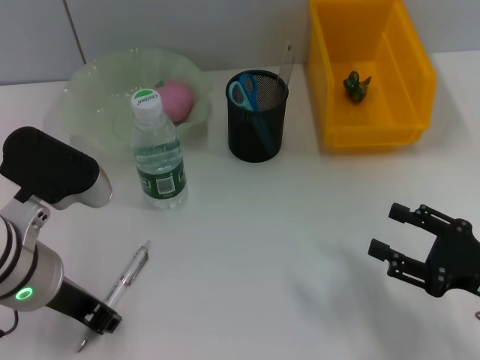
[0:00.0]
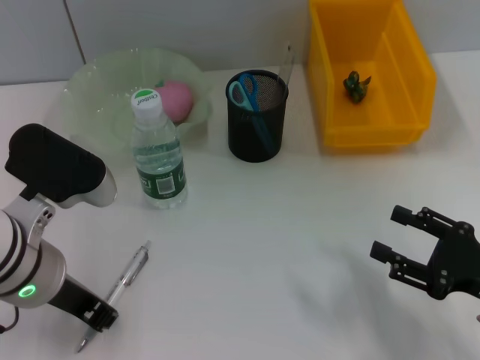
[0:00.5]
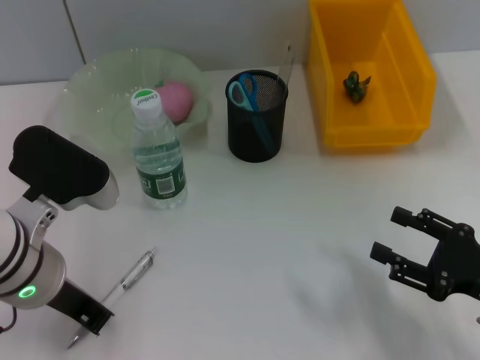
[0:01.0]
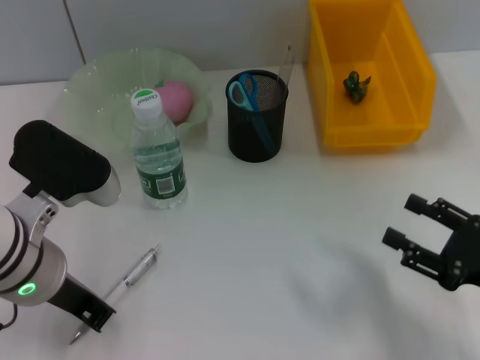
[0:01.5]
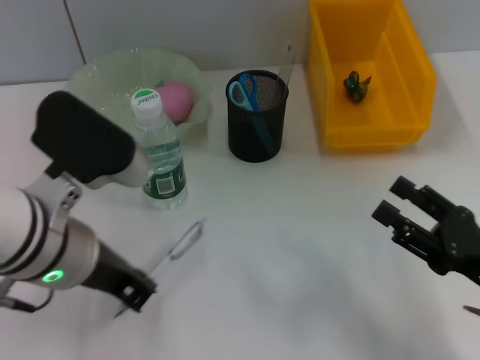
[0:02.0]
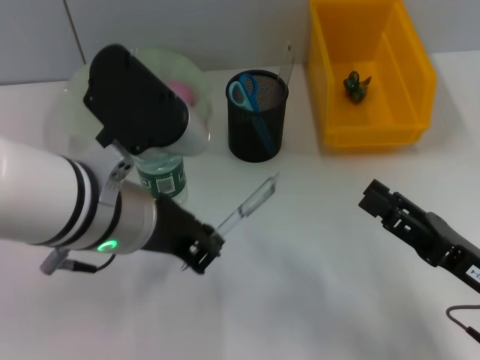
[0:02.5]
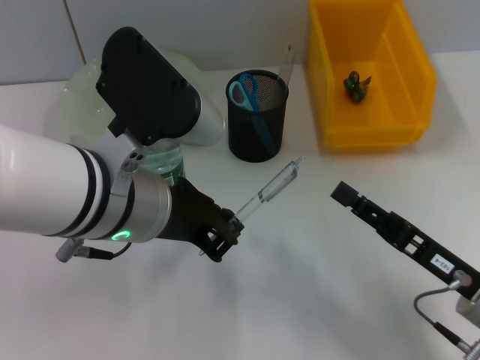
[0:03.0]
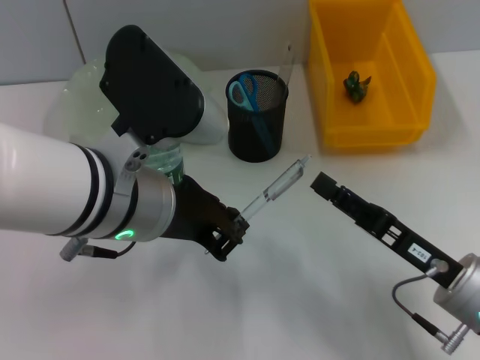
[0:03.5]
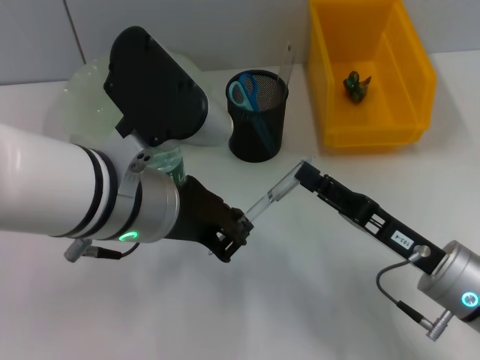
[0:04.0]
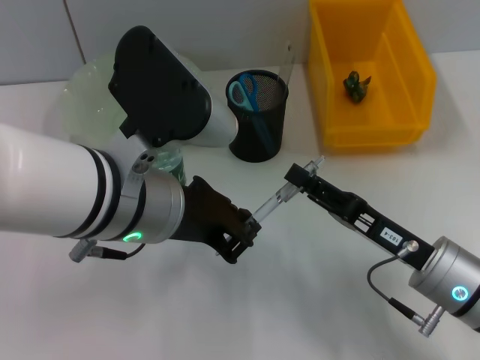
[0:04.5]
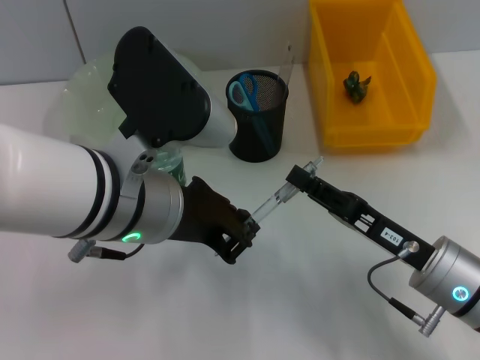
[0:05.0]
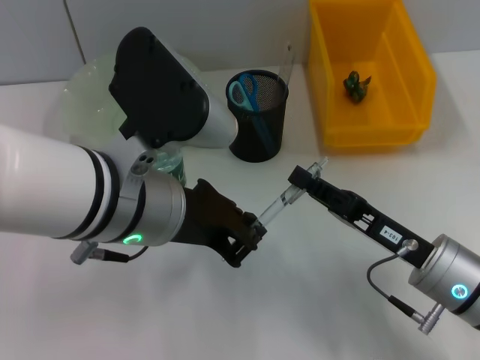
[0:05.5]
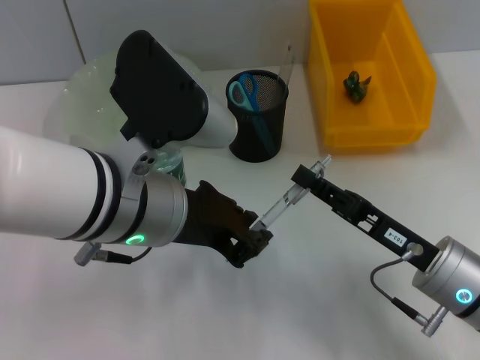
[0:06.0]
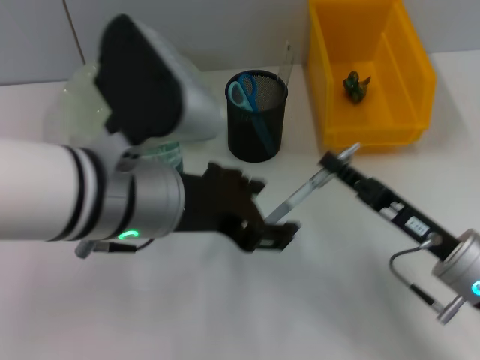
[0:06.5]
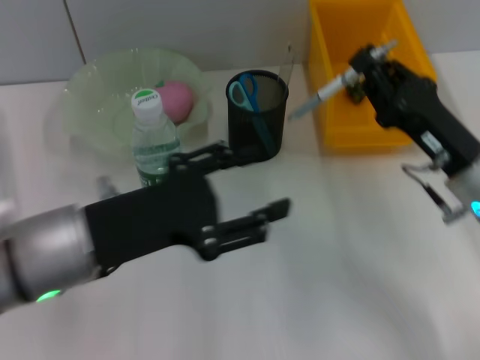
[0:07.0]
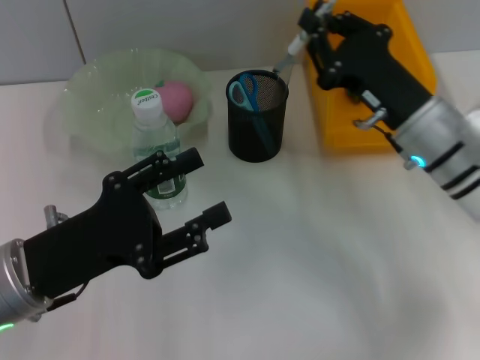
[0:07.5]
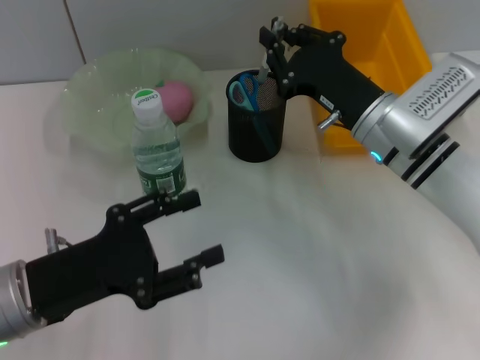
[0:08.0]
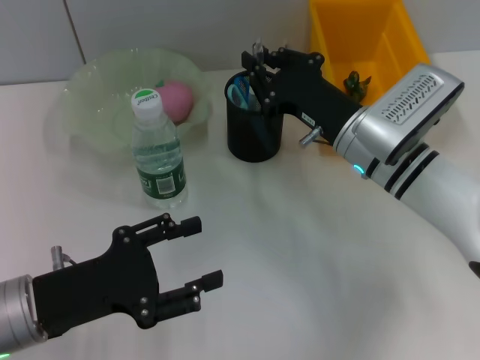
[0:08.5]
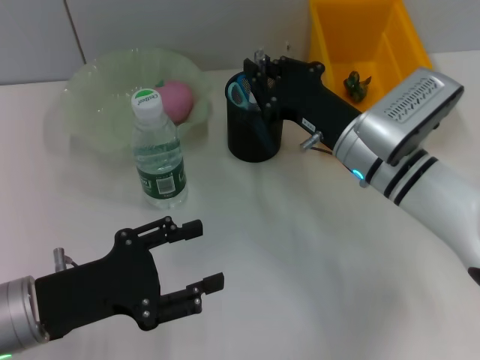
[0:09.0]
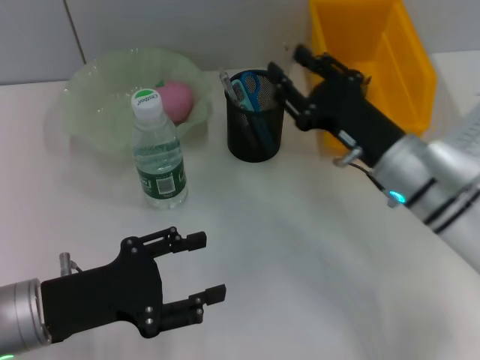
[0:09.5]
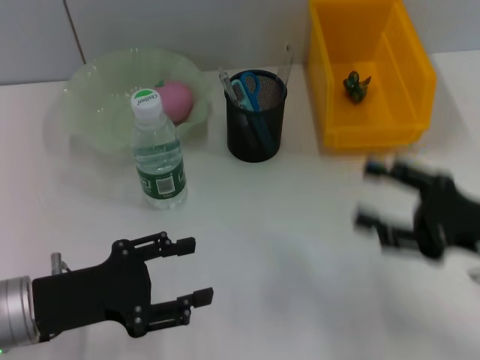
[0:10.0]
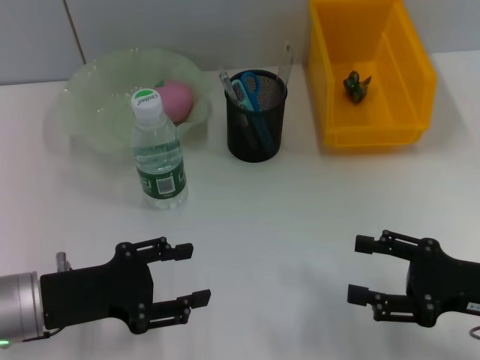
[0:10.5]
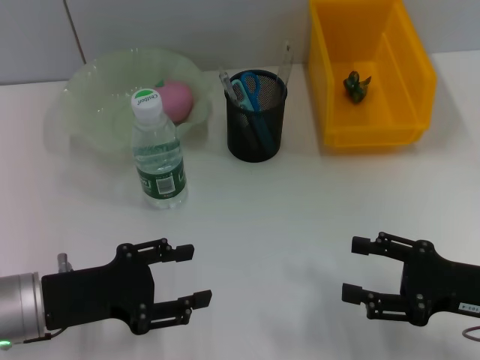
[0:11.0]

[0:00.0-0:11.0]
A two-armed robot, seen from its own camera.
Step, 0:01.5 to 0:06.0: Pass the gray spring-action pen from the left hand to the right hand.
Step, 0:06.5 to 0:09.5: Place the gray spring-action pen into the pen holder with the right hand.
0:00.0 to 0:02.0: The left gripper shifts by about 5 cm.
0:02.0 to 0:03.5: The left gripper shifts by about 5 cm, while the right gripper moves to the left, roughly 5 cm.
0:03.5 to 0:05.5: The right gripper closes up.
0:05.5 to 0:07.5: The left gripper shifts about 15 cm to the left and downward, and opens up; the right gripper moves forward and upward, approximately 10 cm.
0:07.5 to 0:09.0: The right gripper shifts by roughly 5 cm.
0:09.0 to 0:11.0: The right gripper goes roughly 20 cm backward and to the right, and opens its fingers.

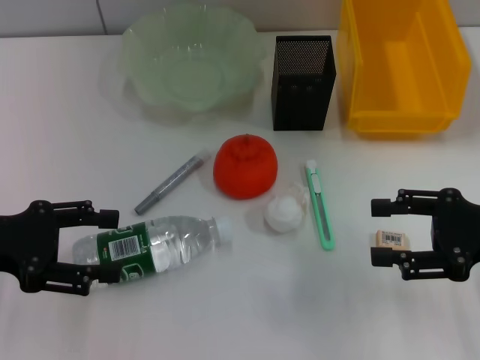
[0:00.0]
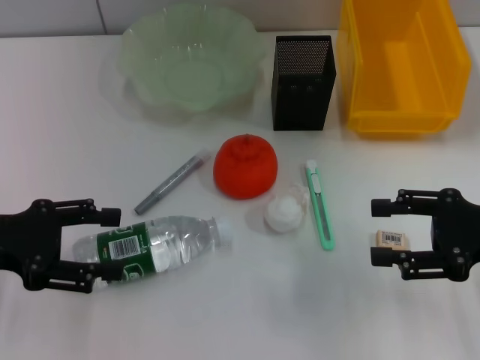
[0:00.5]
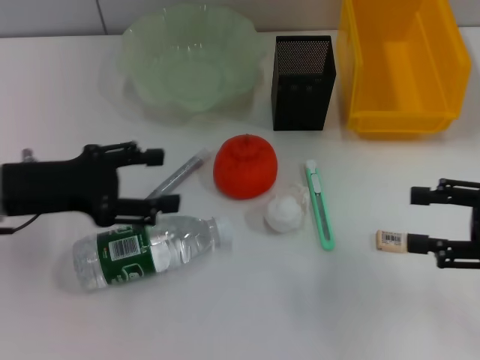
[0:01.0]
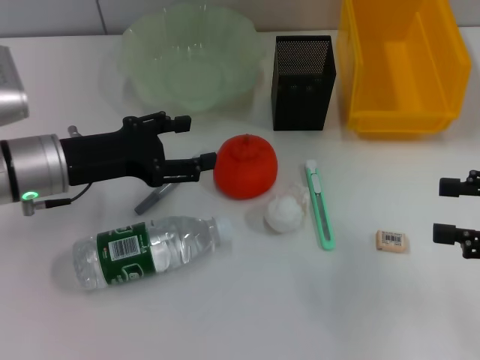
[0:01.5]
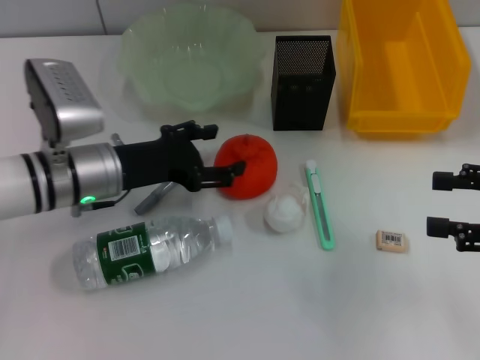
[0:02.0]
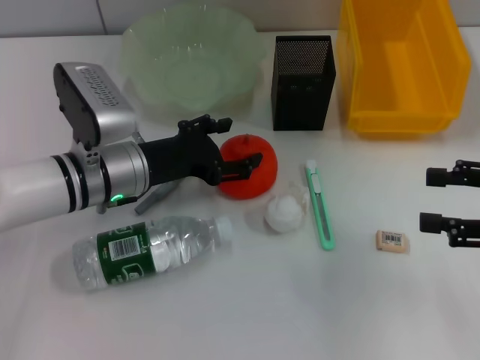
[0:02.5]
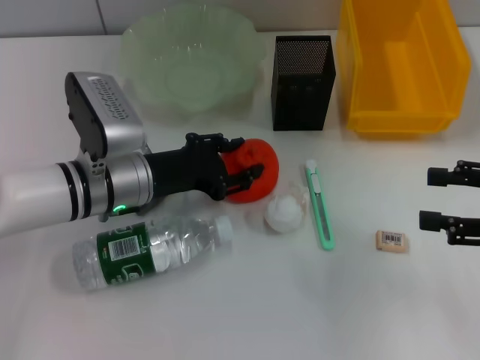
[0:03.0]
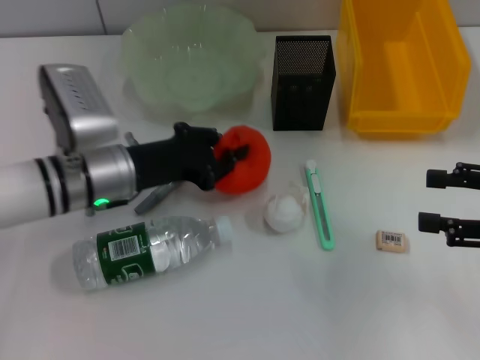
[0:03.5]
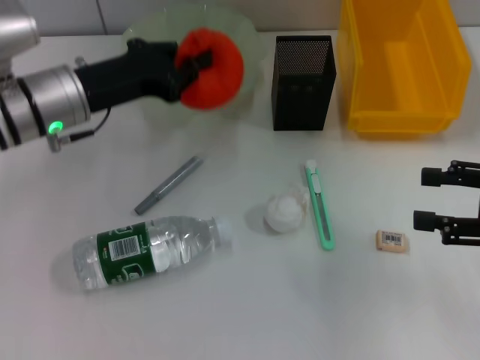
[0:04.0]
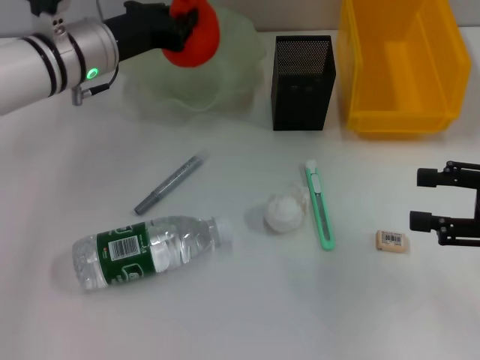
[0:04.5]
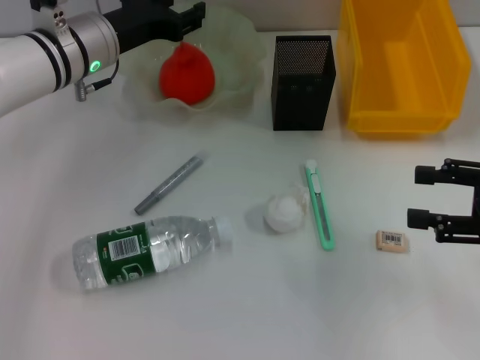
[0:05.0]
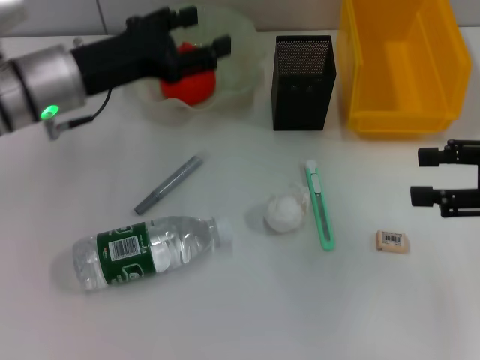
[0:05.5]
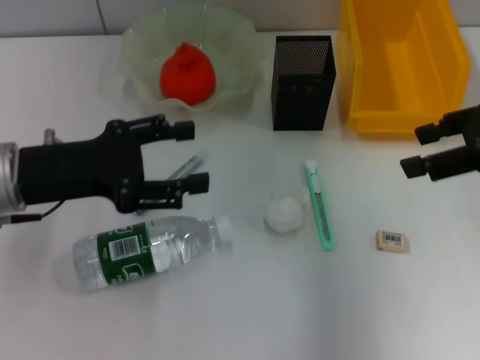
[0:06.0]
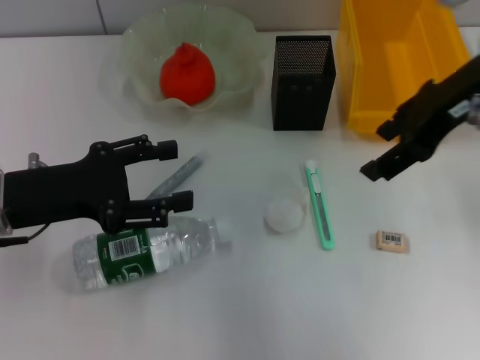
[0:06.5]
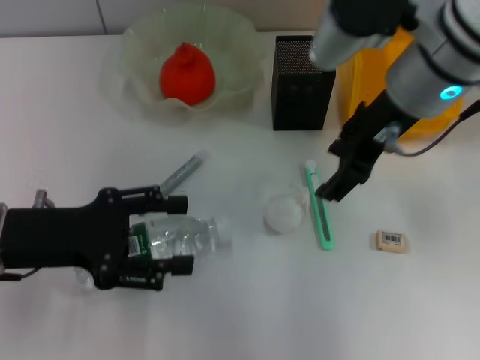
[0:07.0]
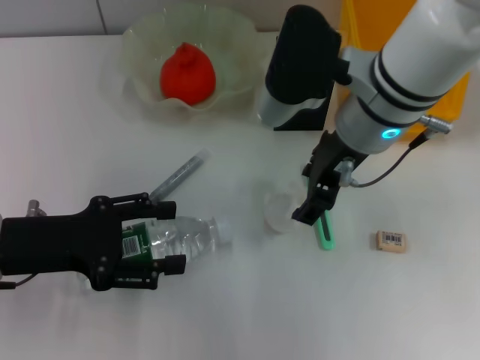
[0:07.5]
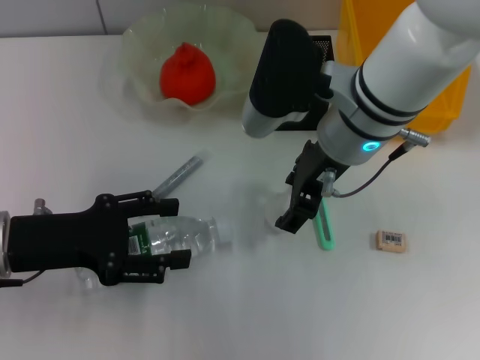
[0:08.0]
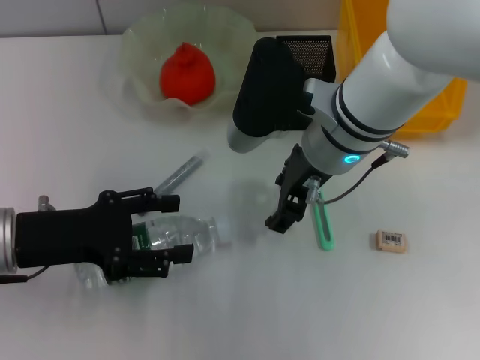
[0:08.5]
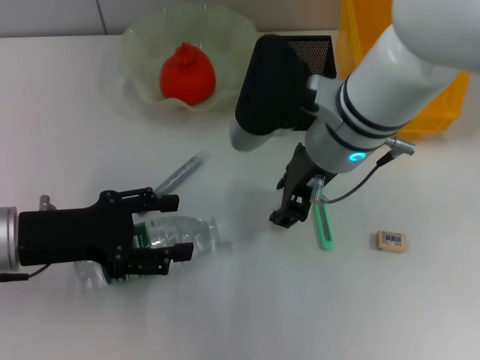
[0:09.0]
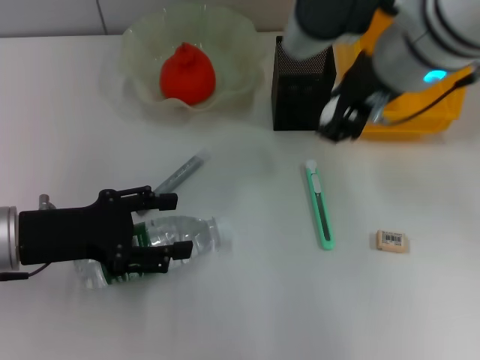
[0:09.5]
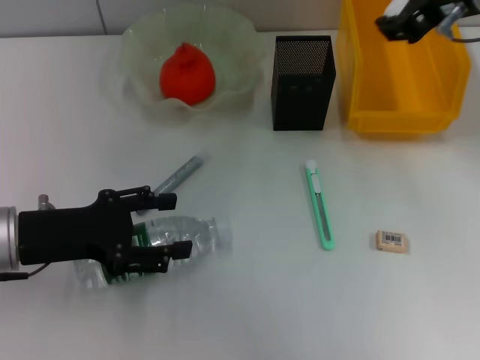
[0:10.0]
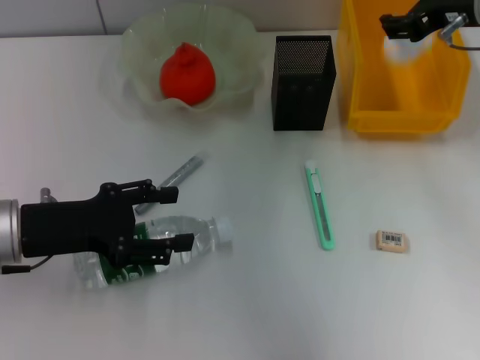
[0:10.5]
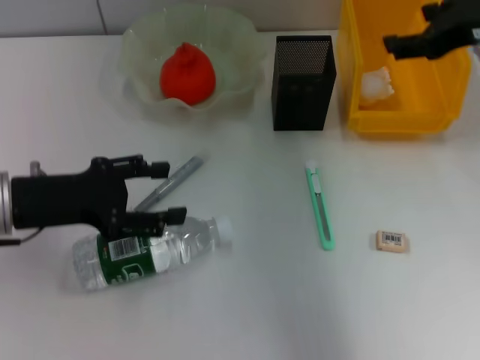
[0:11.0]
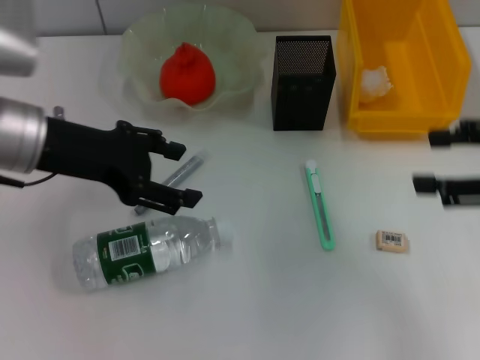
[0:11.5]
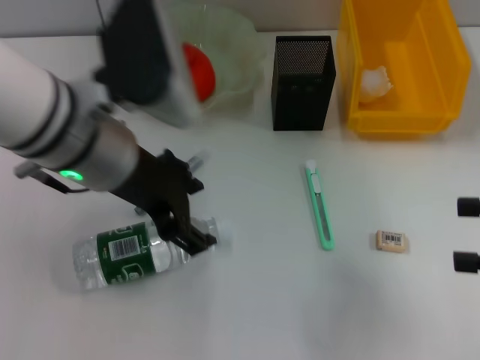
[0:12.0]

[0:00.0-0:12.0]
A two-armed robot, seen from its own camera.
Step, 0:00.0 to 0:03.0: Grab the orange with the left hand.
Step, 0:03.5 to 0:06.5: Place the orange into the fruit bowl with the left hand.
Step, 0:07.0 to 0:08.5: Grab the paper ball with the right hand.
Step, 0:09.0 to 0:11.0: Place the paper ball into the trash can with the right hand.
0:00.0 to 0:02.0: The right gripper ends up approximately 5 cm from where it was. Meanwhile the left gripper goes some 15 cm to the right, forward and downward.
0:02.0 to 0:04.0: The left gripper shifts some 5 cm upward, and closes its fingers.
0:04.0 to 0:06.0: The left gripper travels backward by roughly 10 cm, and opens its fingers, while the right gripper heads upward and forward, covering approximately 10 cm.
0:06.0 to 0:08.0: The right gripper moves to the left, some 20 cm.
0:08.0 to 0:10.0: The right gripper is displaced to the right and upward by about 15 cm, and closes up.
0:10.0 to 0:12.0: The right gripper goes about 25 cm to the right, backward and downward, and opens its fingers, while the left gripper goes roughly 15 cm to the right and upward.

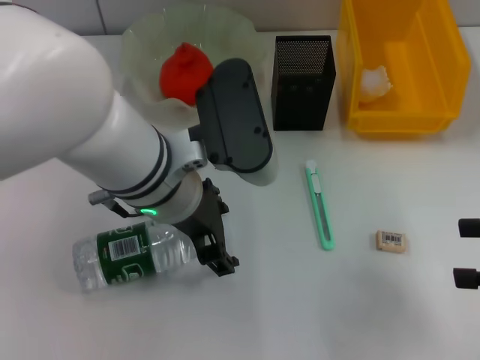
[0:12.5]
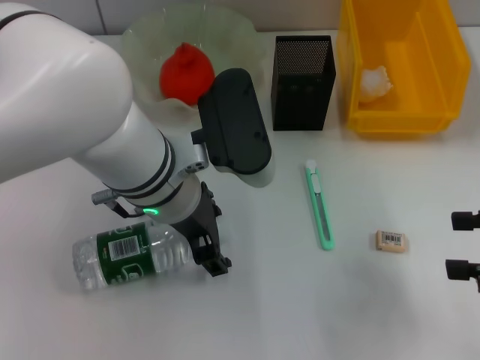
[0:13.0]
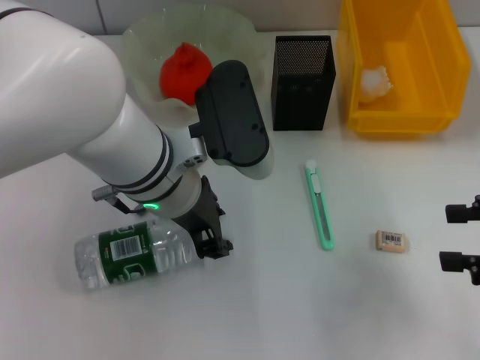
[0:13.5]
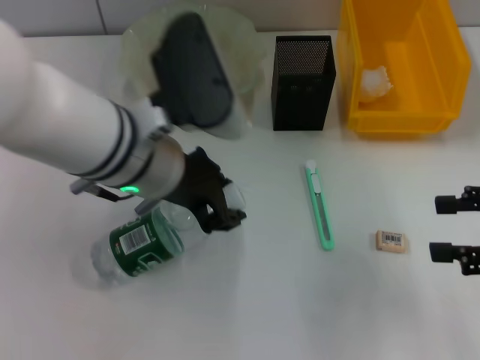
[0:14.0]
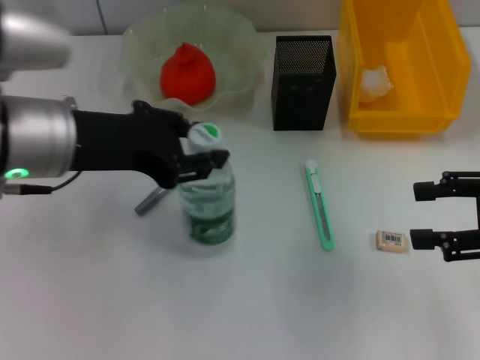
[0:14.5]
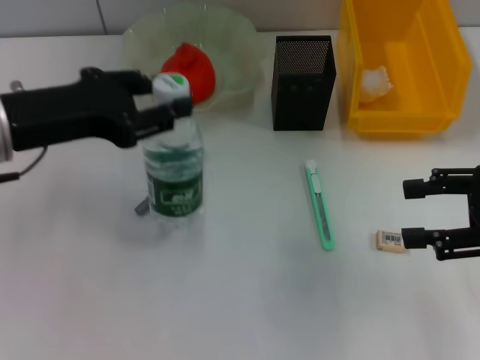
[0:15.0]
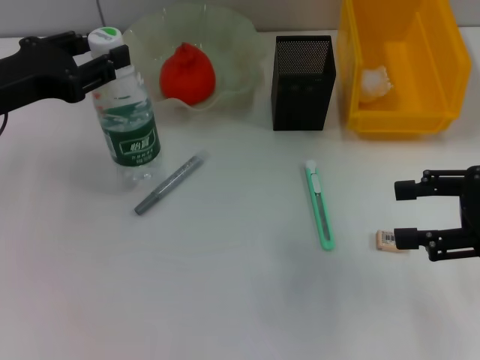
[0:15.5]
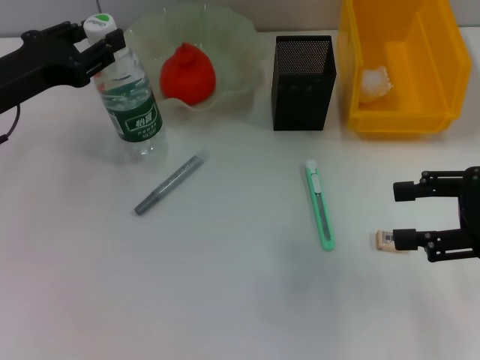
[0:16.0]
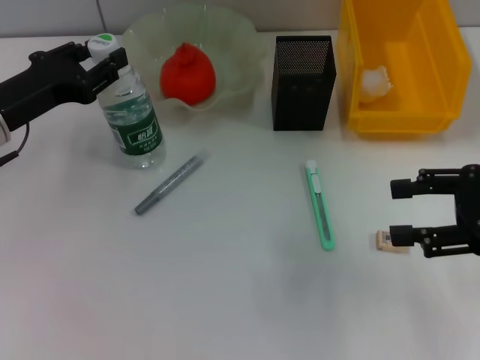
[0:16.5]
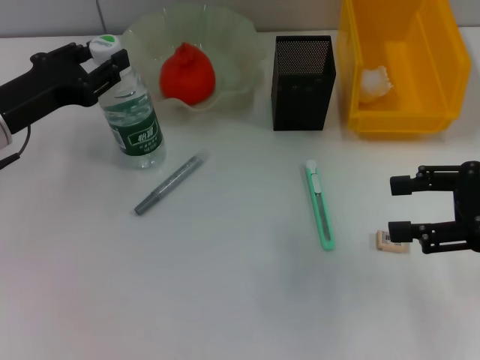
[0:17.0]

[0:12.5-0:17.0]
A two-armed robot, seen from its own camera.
0:12.5 to 0:14.5: The right gripper changes place by about 5 cm, while the left gripper moves to the left, roughly 10 cm, and closes.
0:14.5 to 0:17.0: The left gripper goes roughly 15 cm downward and to the left.
